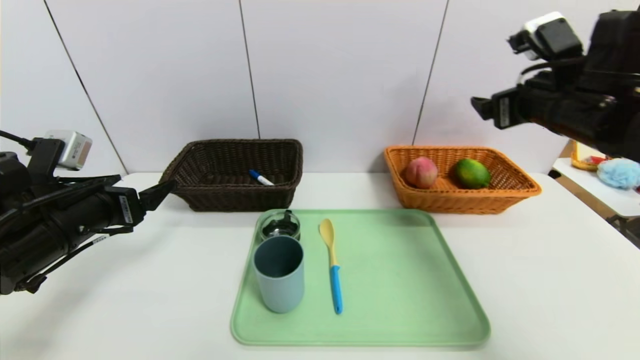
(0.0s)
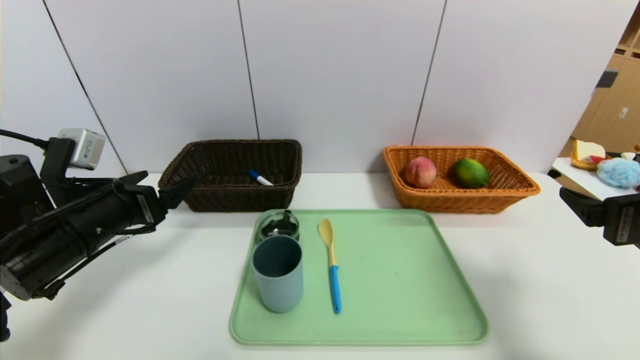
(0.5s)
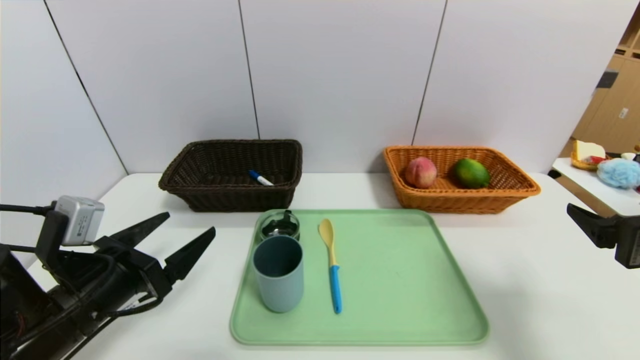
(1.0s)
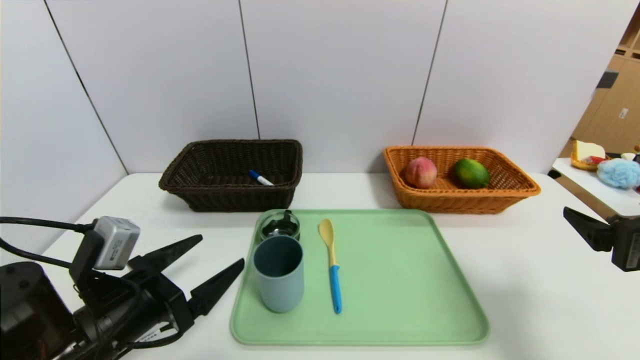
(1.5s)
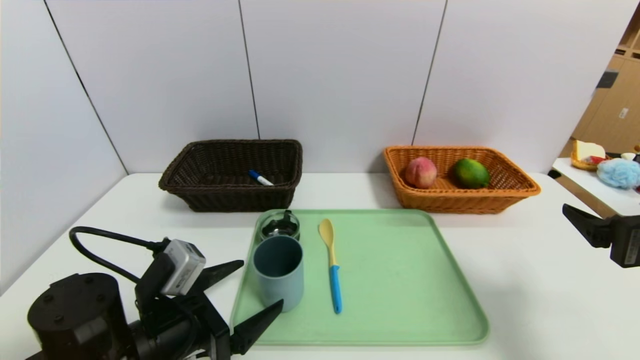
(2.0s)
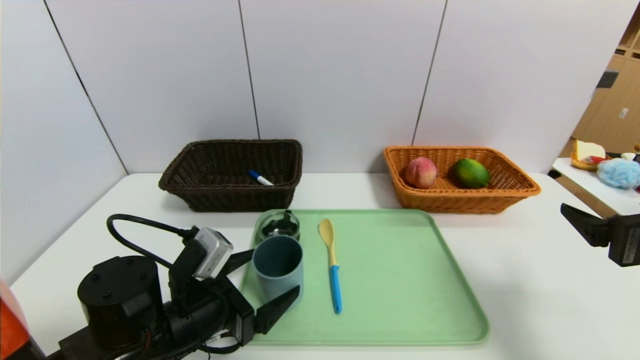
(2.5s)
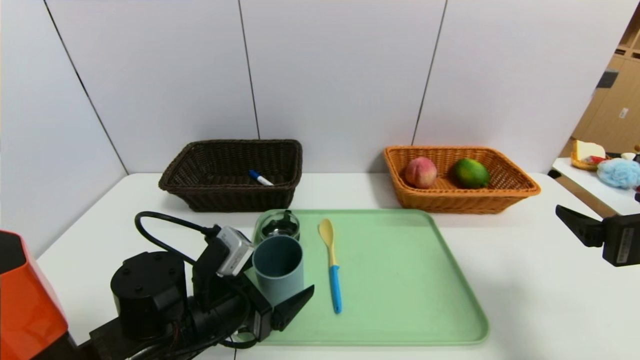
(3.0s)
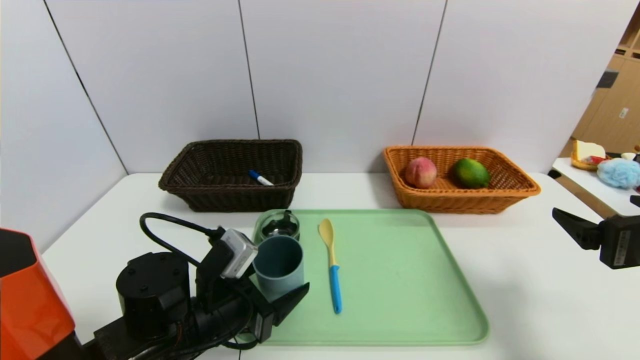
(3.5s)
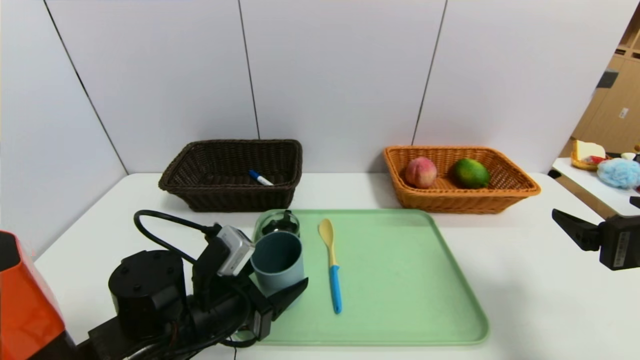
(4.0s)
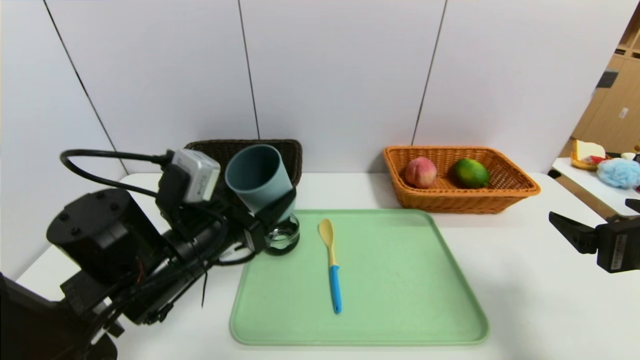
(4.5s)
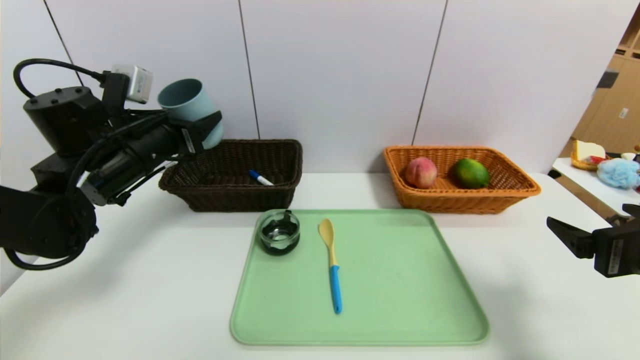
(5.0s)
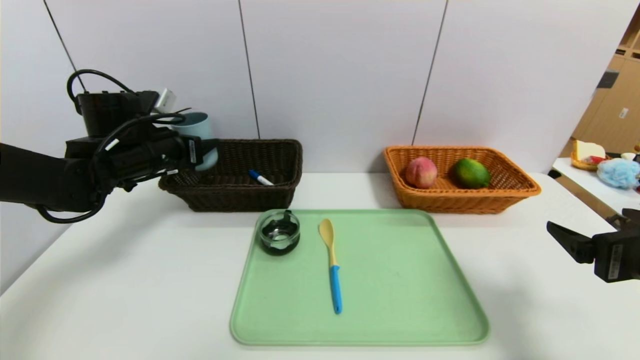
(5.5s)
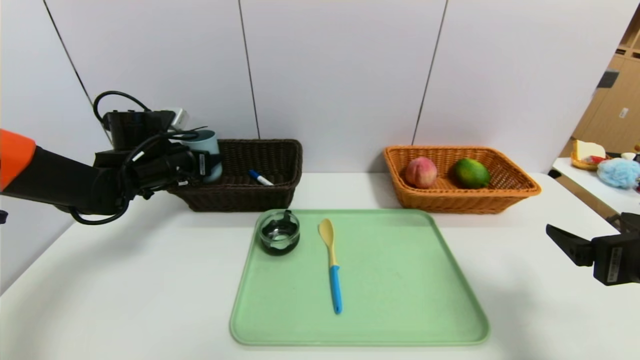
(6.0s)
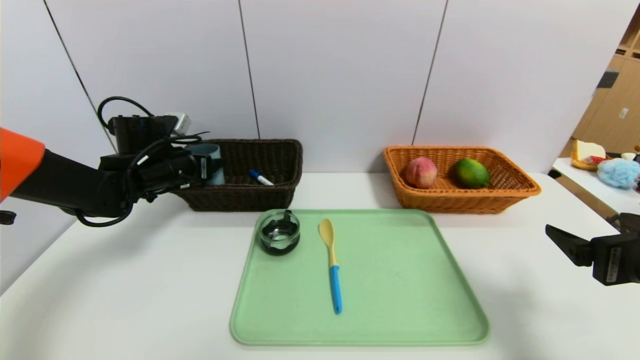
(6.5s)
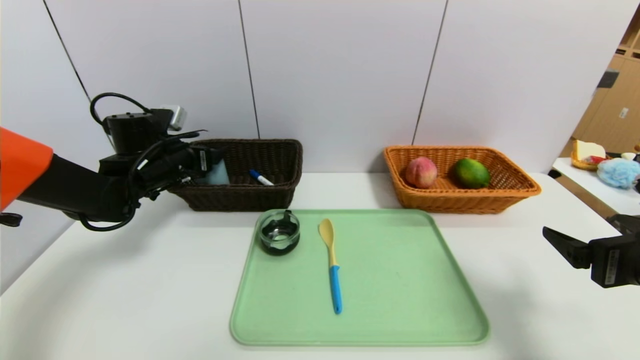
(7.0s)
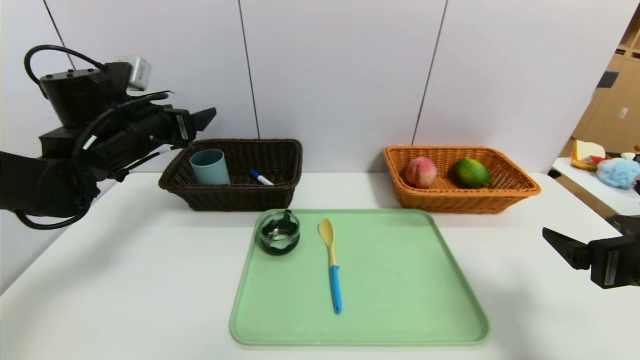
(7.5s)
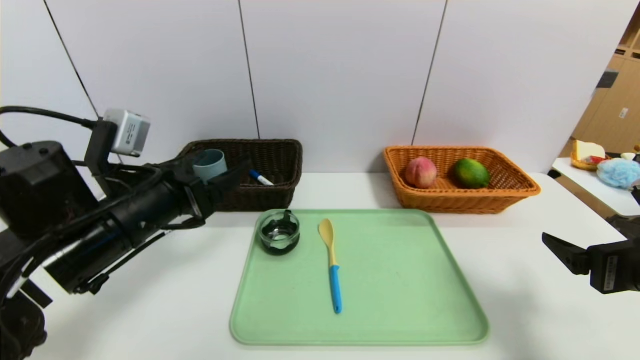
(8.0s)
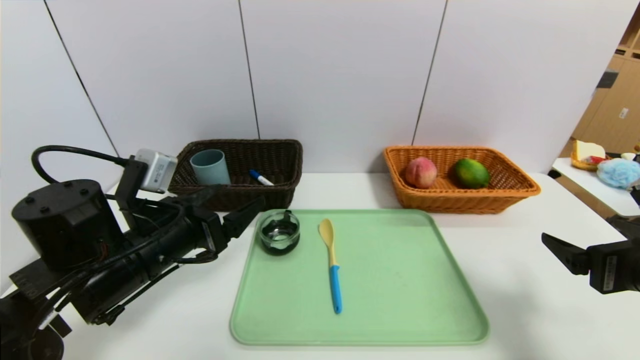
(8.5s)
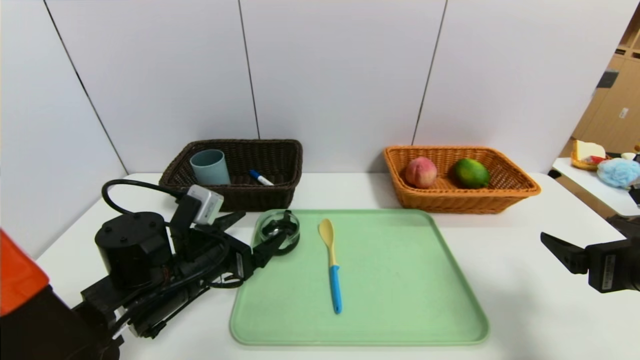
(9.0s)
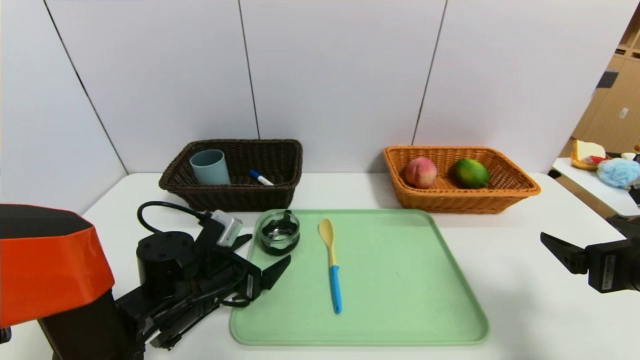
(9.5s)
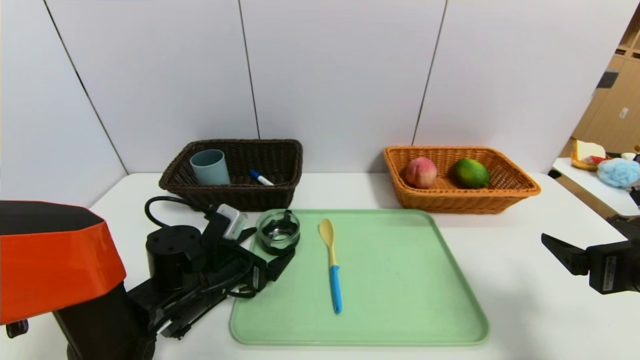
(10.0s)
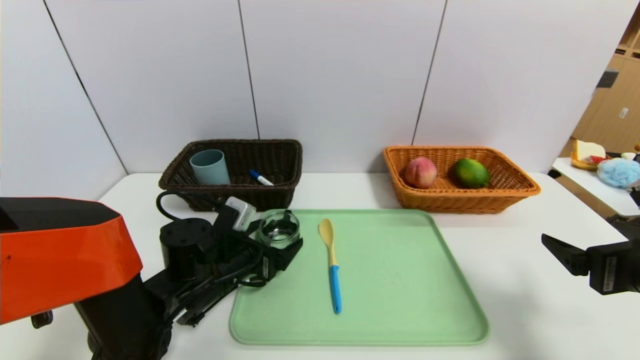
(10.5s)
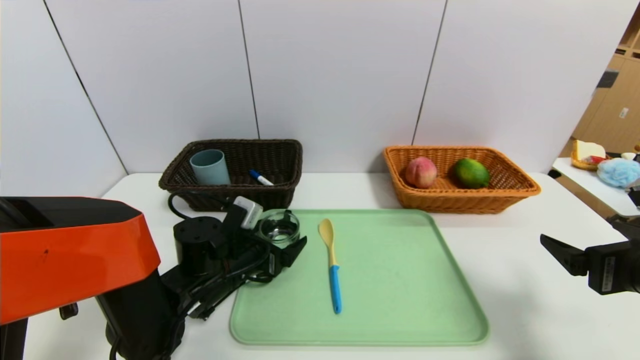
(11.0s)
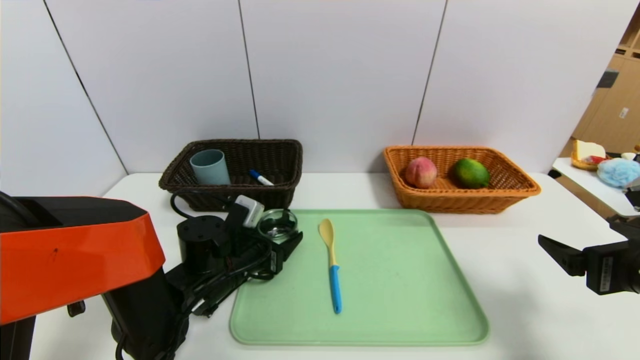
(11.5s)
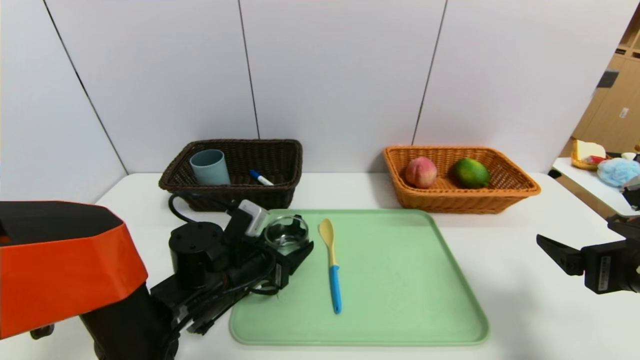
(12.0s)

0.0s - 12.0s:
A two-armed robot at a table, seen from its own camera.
Task of the whole recording: place the food in the right basket with the right gripper, and place the non food items in the left basket with the left gripper.
Step, 0.0s - 7.0s: Grasp the blue cup and put it in the left basket.
0.0s - 2.0s: The right gripper goes approximately 15 cm backward and downward; the left gripper is displaced to the right, downward and backward by some 15 cm.
2.0s - 4.0s: There are only small adjustments of the grippers.
4.0s - 6.0s: The left gripper travels forward, to the left and upward by roughly 25 cm.
6.0s - 8.0s: The left gripper travels backward by about 20 cm.
8.0s - 10.0s: The left gripper is displaced downward by roughly 15 cm.
10.0s - 12.0s: The grippers move only a little.

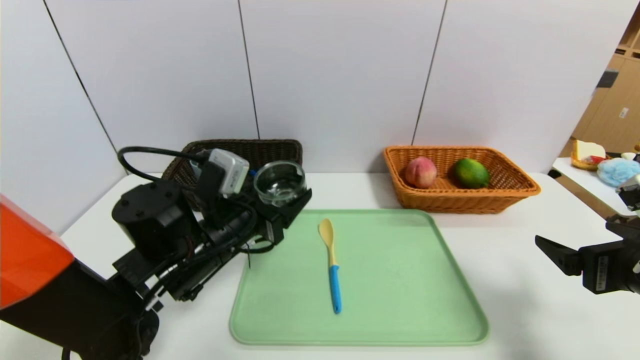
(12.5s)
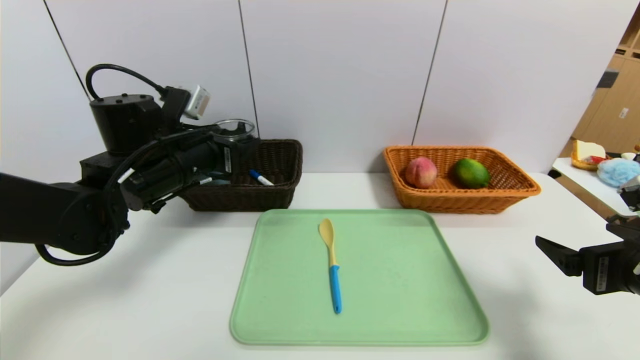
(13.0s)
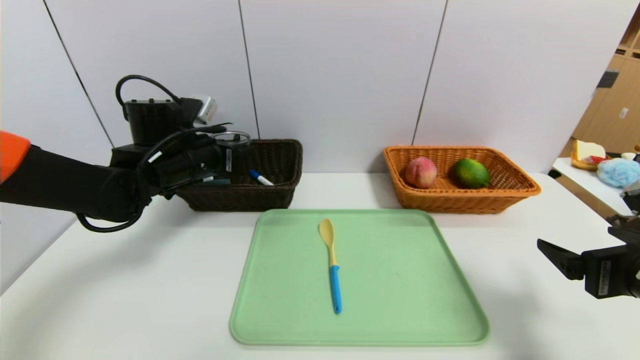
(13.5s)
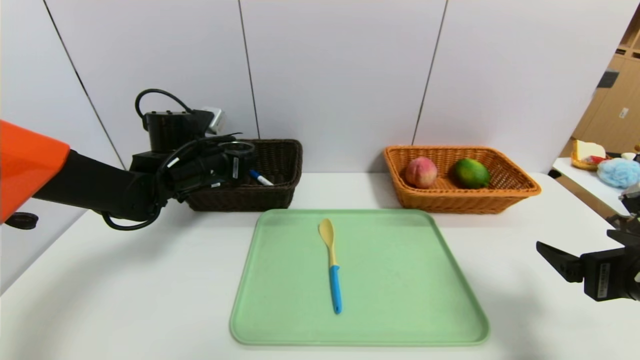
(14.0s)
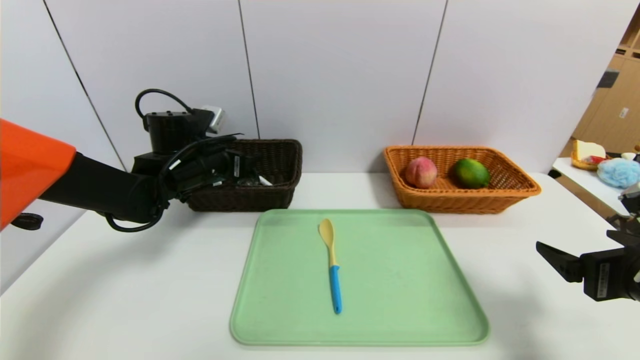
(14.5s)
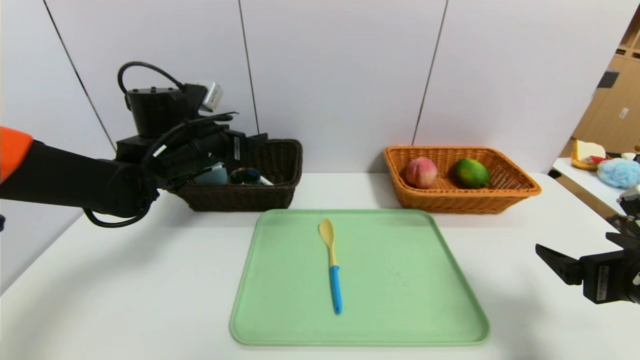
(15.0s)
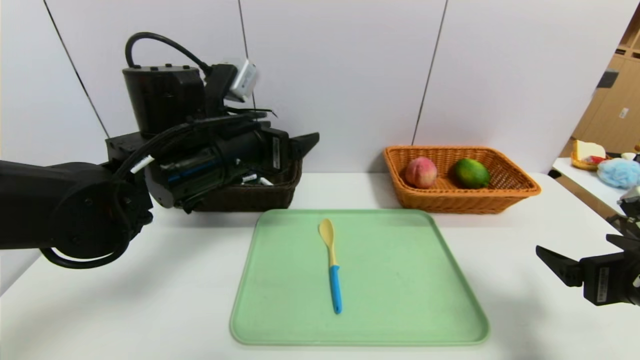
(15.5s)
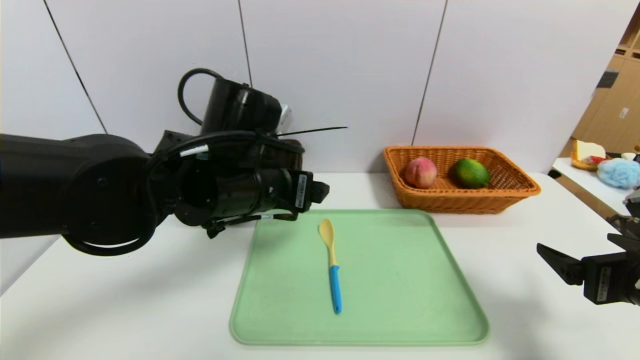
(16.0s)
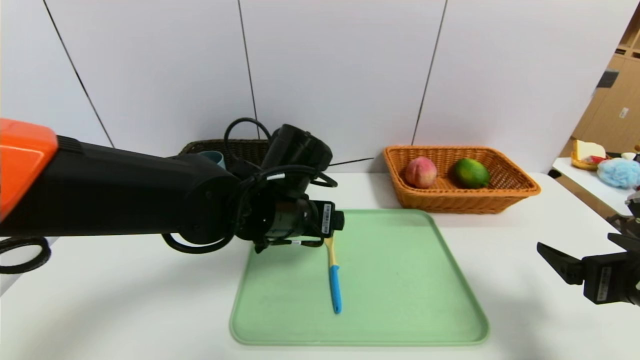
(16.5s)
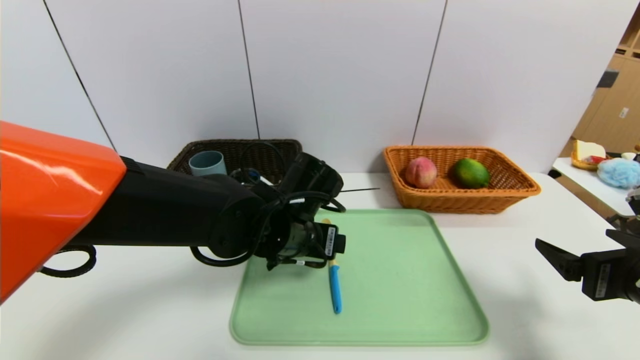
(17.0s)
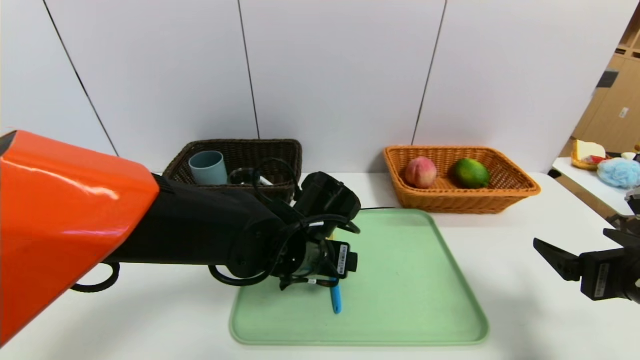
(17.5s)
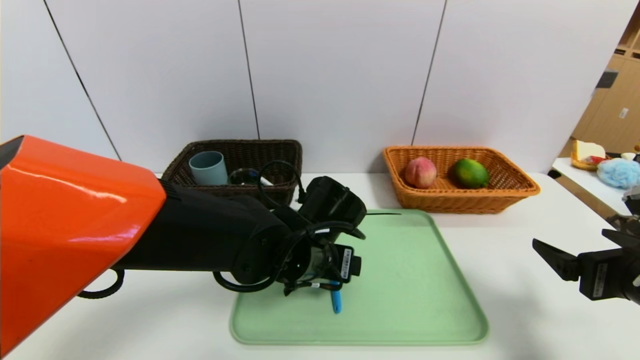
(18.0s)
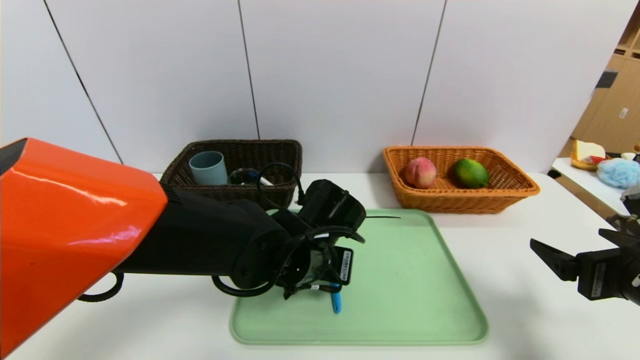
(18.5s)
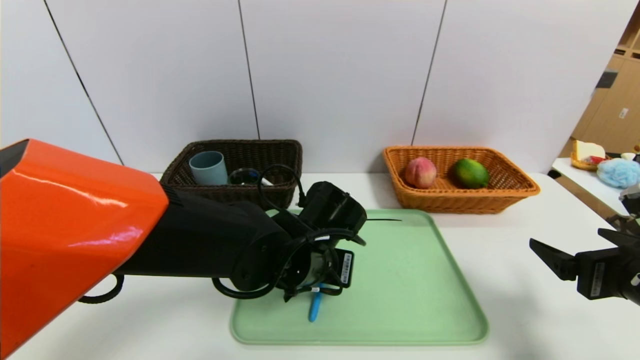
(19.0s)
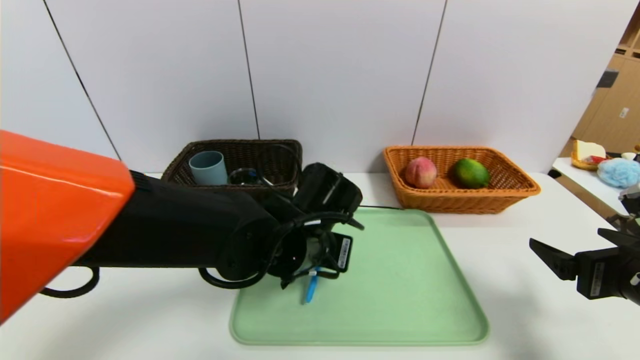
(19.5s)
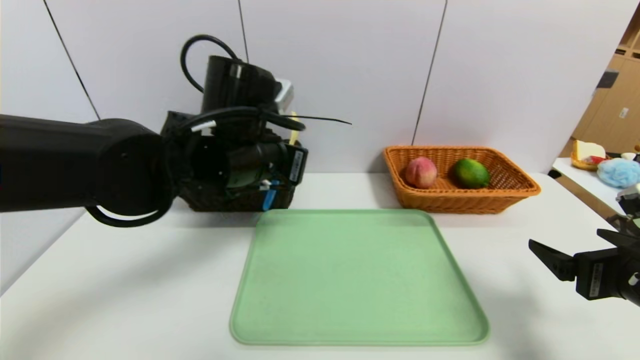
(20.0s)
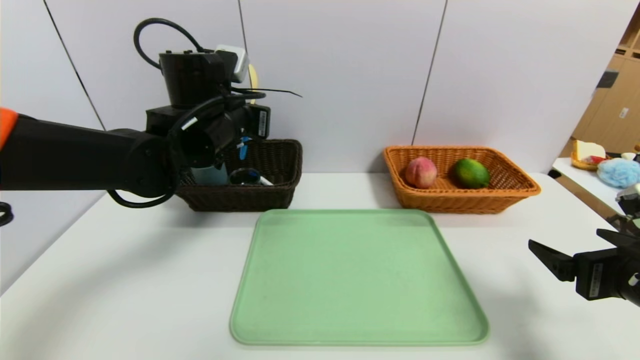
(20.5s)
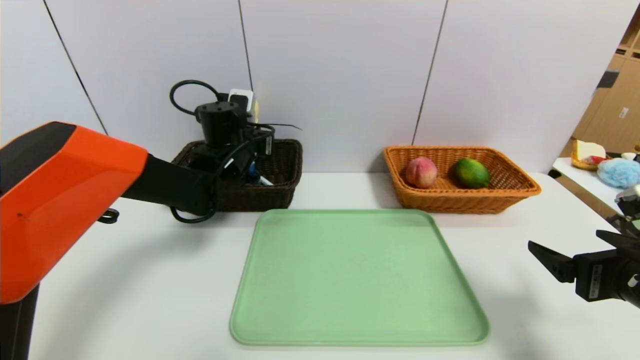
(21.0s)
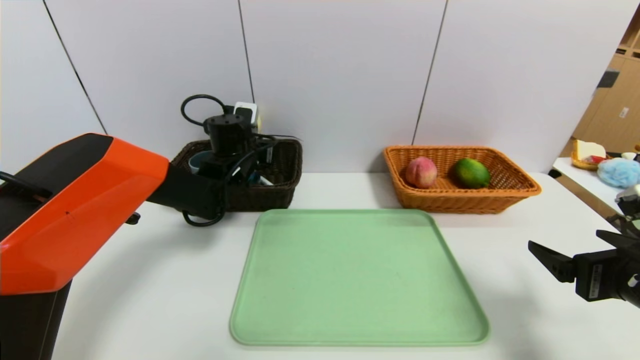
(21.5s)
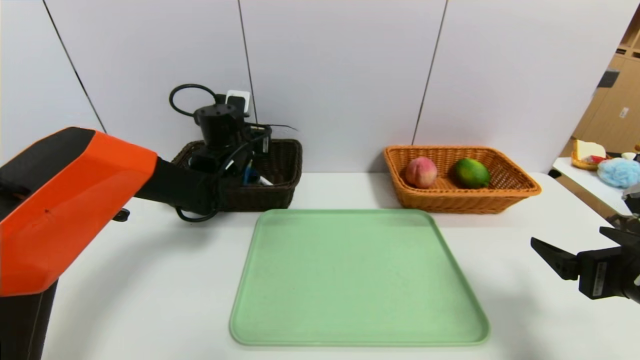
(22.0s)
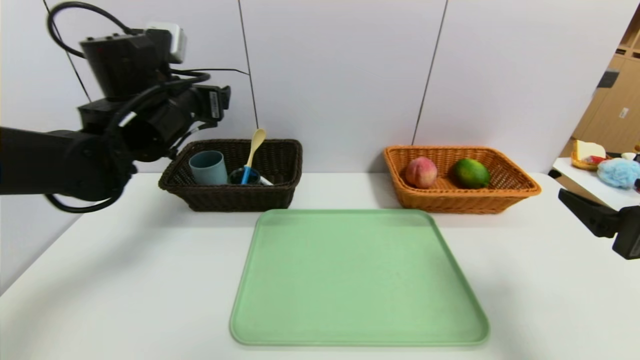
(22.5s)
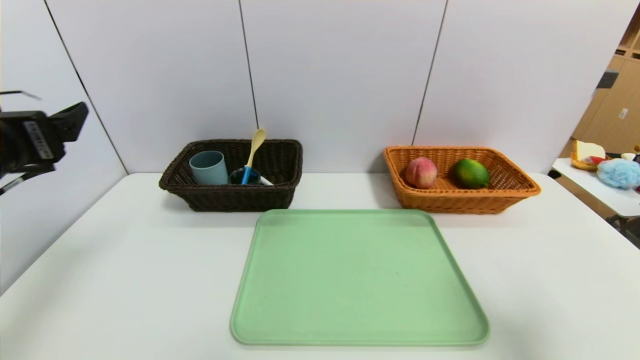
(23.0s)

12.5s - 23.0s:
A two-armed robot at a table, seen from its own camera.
Task of the whole recording: place the food in the right basket with the right gripper, and place the non food items in the left basket with the left gripper.
Step, 12.5s - 15.0s: Grasp the tea cup and put it in the left basket.
Step, 15.5s - 22.0s: Grasp the spoon and put it in the left basket.
12.5s - 14.5s: The left gripper heads forward and to the left, covering roughly 15 cm.
14.5s - 16.5s: The left gripper shifts about 20 cm to the right and backward.
16.5s - 19.0s: The left gripper goes about 5 cm downward, and closes its fingers.
19.0s - 21.0s: The left gripper heads forward, to the left and upward, covering some 20 cm.
21.0s - 23.0s: The left gripper moves backward and to the left, roughly 30 cm, and opens up. Meanwhile the right gripper goes some 10 cm upward and backward.
